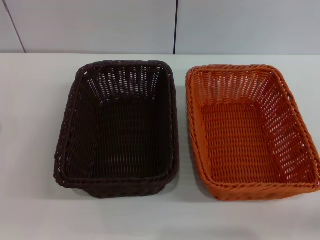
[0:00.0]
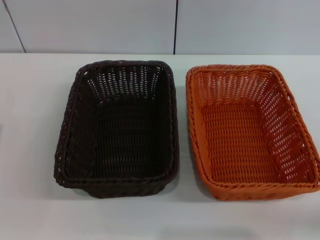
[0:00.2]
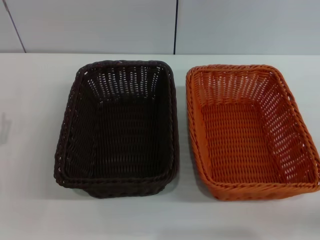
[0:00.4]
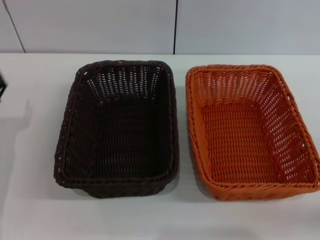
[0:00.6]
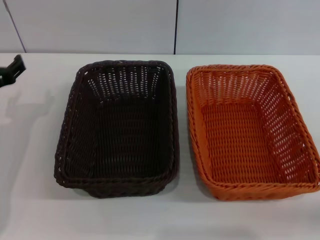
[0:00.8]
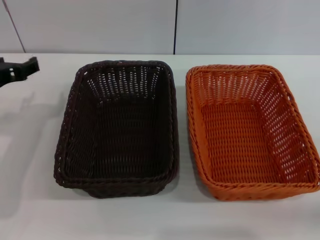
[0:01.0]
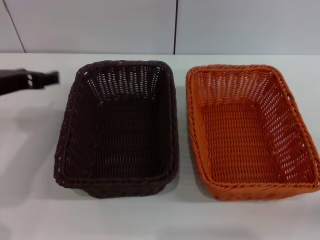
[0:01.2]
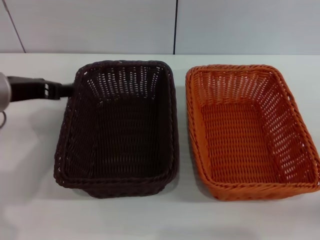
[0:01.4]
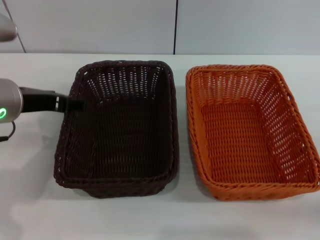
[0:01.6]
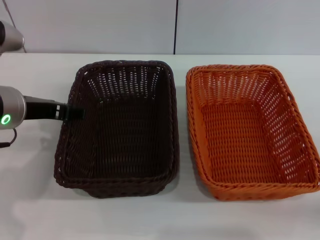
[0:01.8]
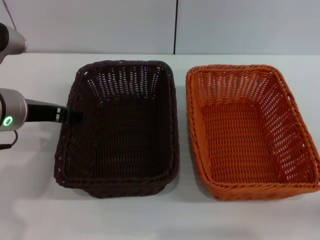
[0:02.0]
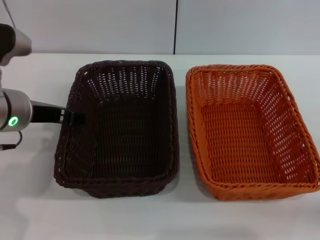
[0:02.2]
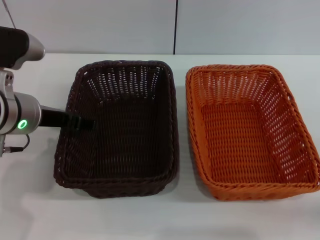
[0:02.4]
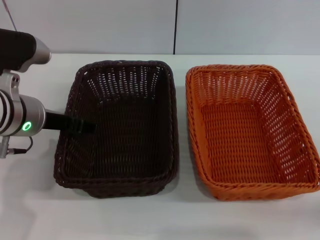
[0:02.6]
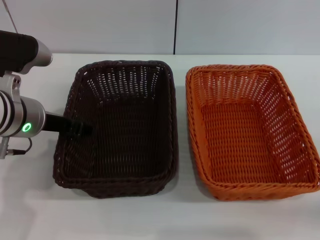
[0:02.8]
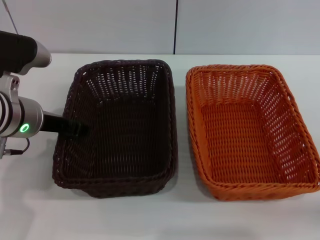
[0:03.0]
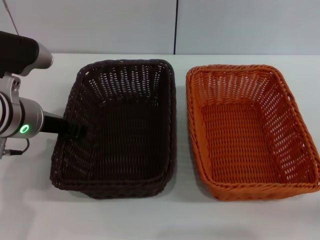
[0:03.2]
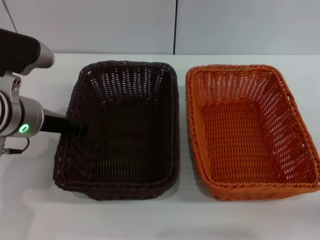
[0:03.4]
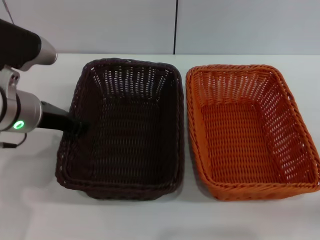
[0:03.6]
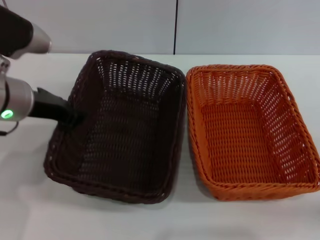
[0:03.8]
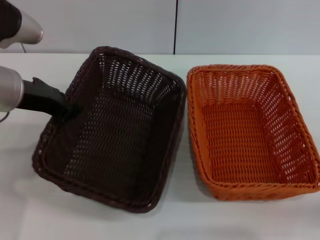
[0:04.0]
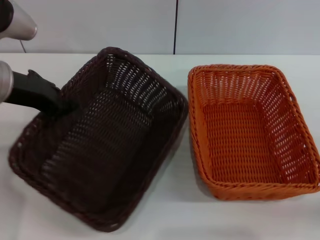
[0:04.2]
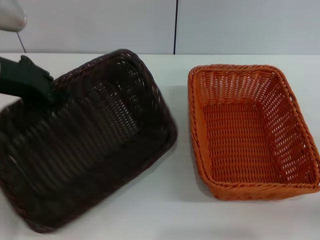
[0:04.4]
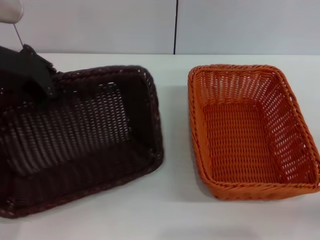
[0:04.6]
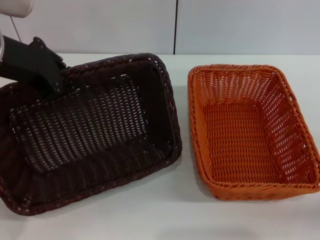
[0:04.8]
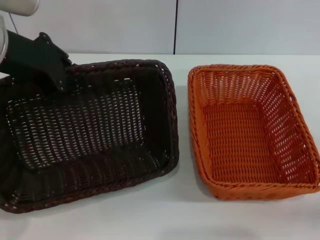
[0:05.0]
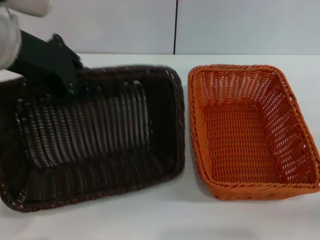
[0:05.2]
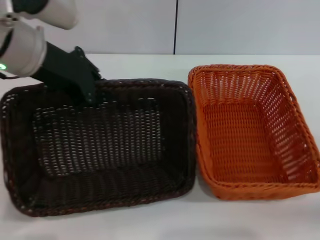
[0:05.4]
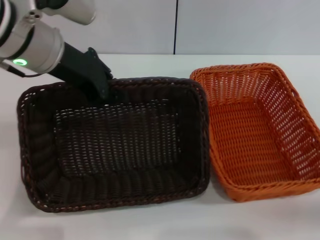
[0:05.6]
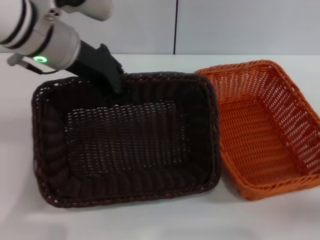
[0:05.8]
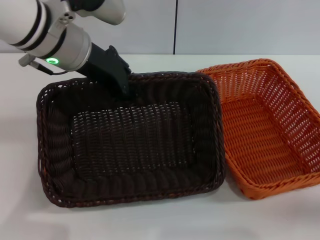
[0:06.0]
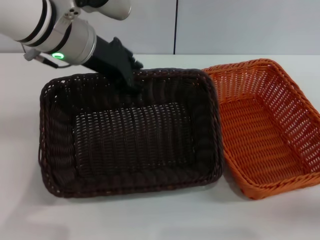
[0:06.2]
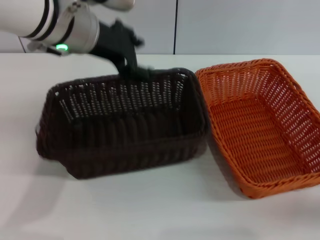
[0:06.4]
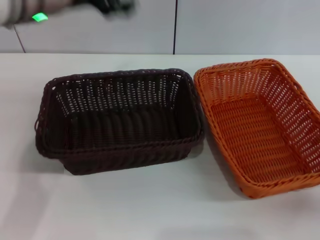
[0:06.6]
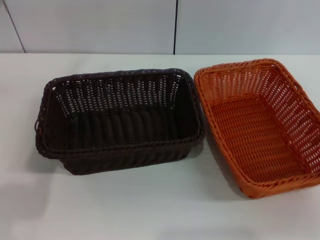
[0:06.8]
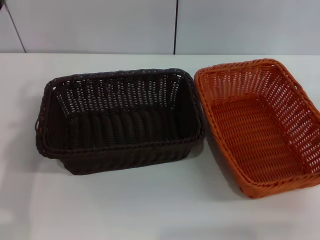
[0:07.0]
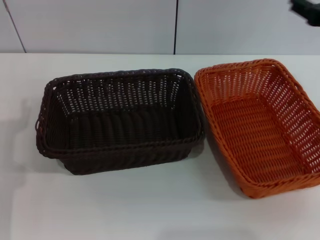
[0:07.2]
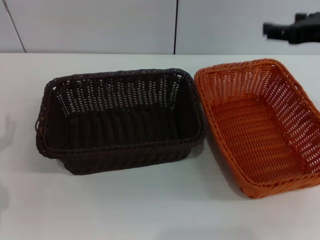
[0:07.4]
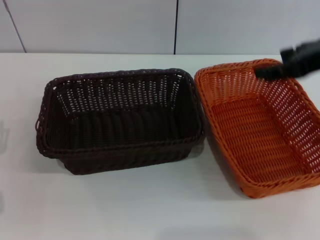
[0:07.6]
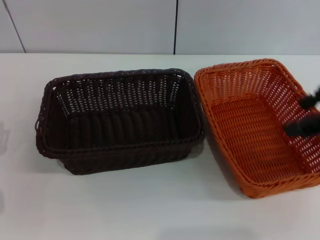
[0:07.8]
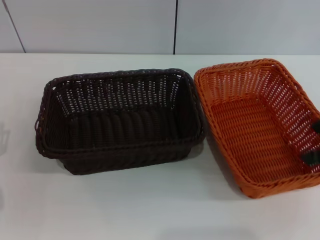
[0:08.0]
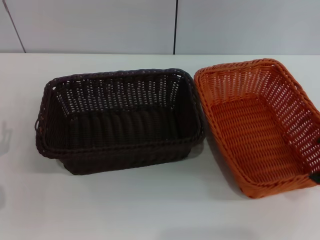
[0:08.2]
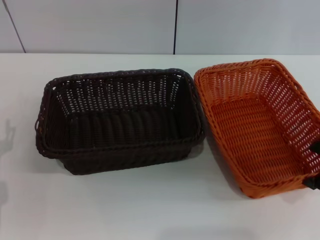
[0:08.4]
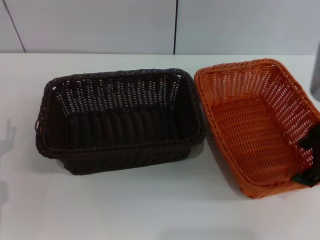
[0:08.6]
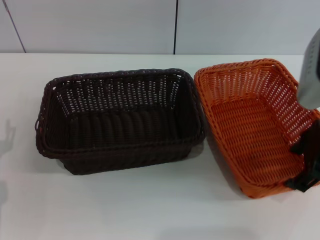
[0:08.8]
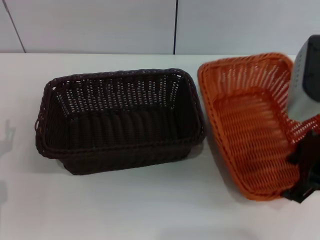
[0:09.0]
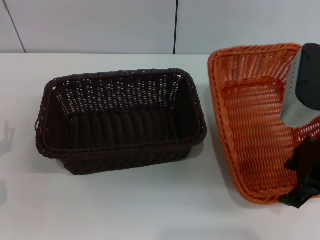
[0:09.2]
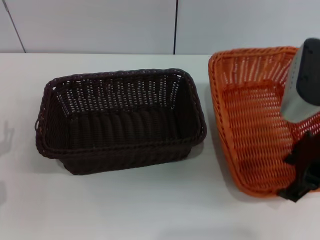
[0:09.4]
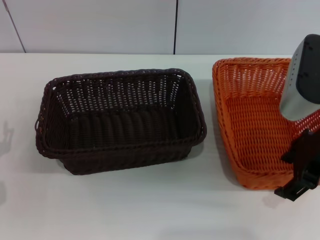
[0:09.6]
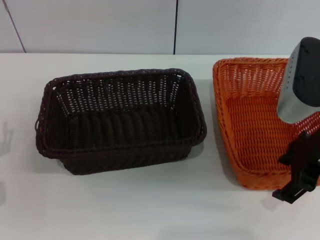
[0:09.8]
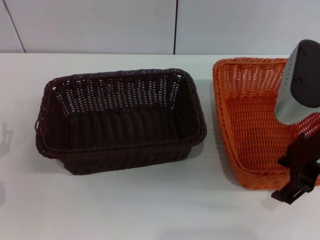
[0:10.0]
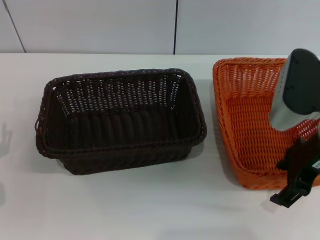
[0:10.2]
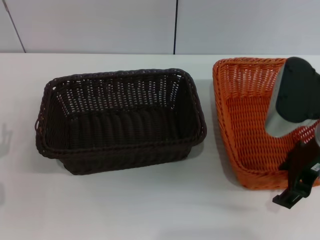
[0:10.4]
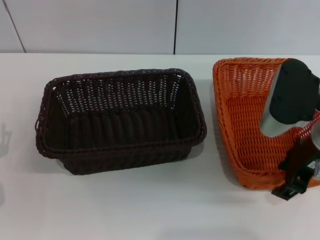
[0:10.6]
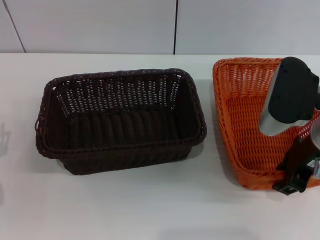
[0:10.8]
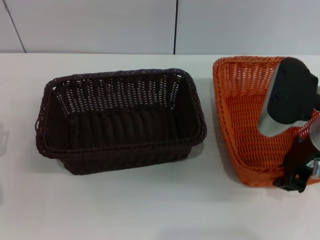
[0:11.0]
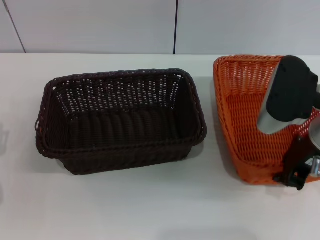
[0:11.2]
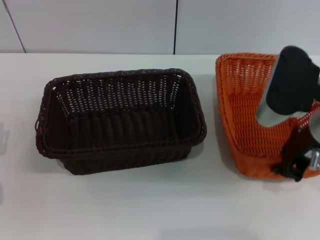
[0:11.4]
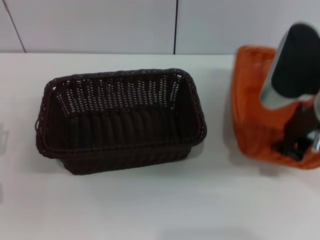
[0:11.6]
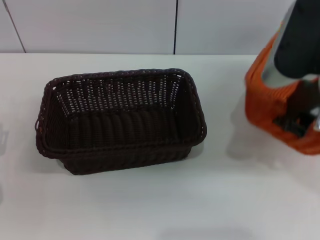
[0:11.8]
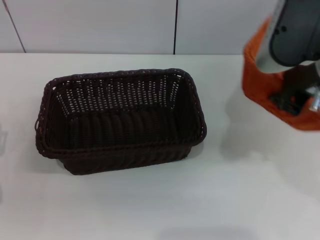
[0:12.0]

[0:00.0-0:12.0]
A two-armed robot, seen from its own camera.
Step, 0:00.0 to 0:03.6: Pick up the dark basket with the left gripper.
Step, 0:03.8 to 0:06.4: Place the dark basket in the center of view with the left gripper.
Step, 0:06.6 to 0:11.4: Pick up the light basket with the right gripper.
0:00.0 to 0:01.6: The left gripper heads upward, to the right and forward, covering some 20 cm.
0:01.6 to 0:03.0: The grippers make only small movements.
0:03.0 to 0:04.4: The left gripper shifts about 10 cm upward, and closes its fingers.
0:04.4 to 0:06.0: The left gripper heads to the right and forward, covering approximately 10 cm.
0:06.0 to 0:07.6: The left gripper travels downward, backward and to the left by approximately 30 cm, and opens up, while the right gripper goes some 25 cm upward.
0:07.6 to 0:09.0: The right gripper travels downward by some 5 cm.
0:09.0 to 0:10.4: The grippers make only small movements.
0:10.4 to 0:12.0: The right gripper shifts some 10 cm upward, and closes up.

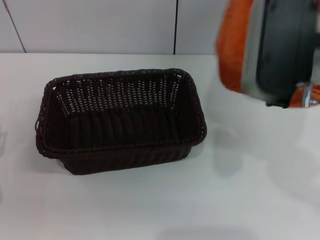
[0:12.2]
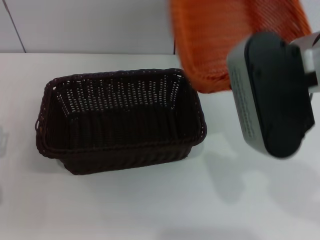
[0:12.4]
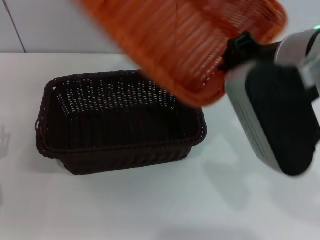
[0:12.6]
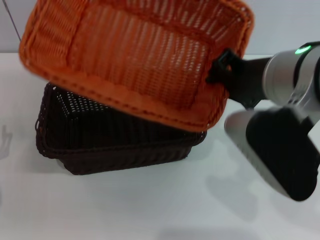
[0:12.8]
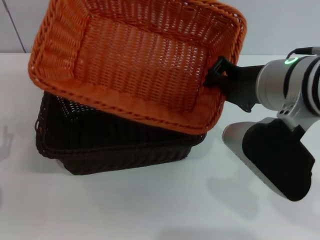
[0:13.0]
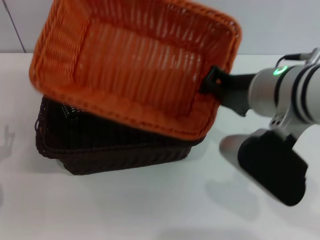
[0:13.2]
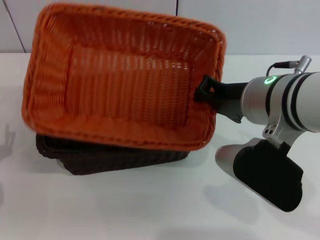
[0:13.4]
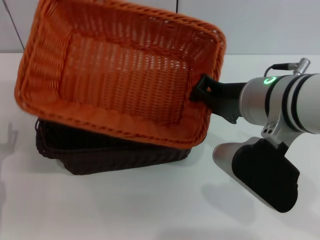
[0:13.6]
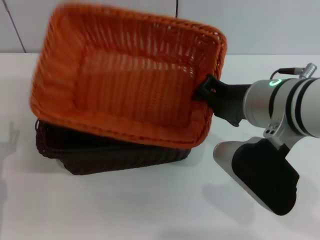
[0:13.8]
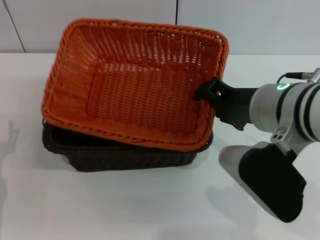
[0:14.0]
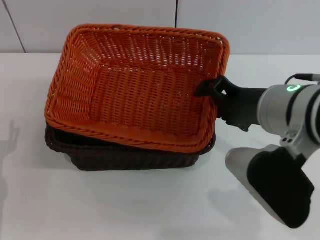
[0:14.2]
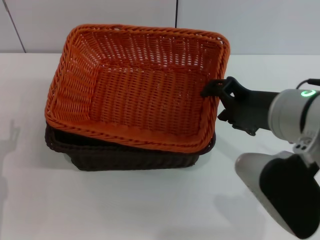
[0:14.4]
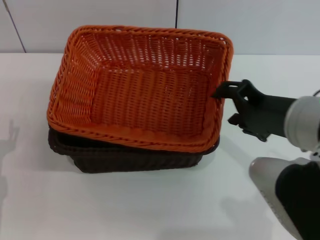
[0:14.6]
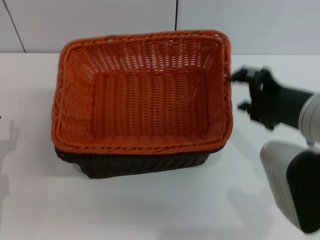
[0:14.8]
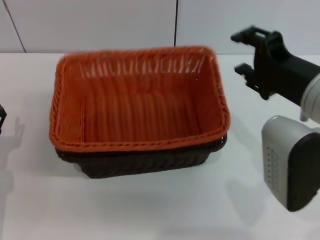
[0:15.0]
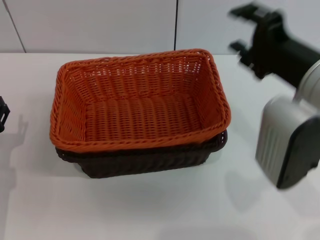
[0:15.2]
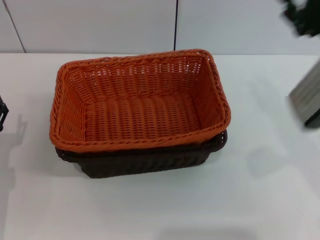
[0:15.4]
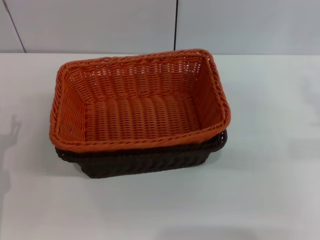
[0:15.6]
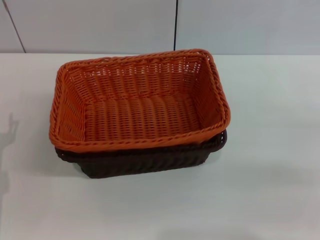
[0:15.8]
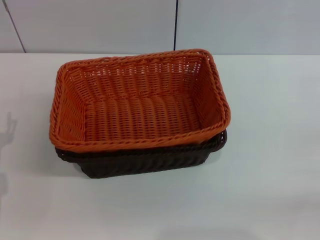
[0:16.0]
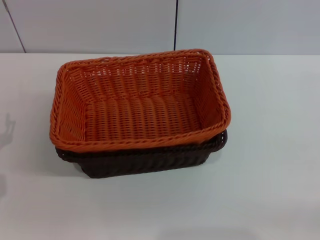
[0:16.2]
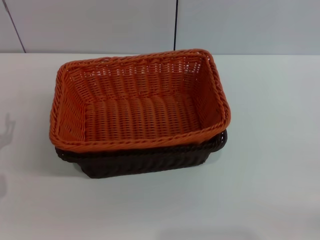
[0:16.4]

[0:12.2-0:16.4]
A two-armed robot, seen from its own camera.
Step, 0:12.2 to 0:15.0: Place the light basket on the dark basket with the right gripper.
0:12.2 to 0:13.6: The right gripper heads downward, covering some 5 cm.
0:13.6 to 0:15.0: The right gripper heads to the right, covering about 5 cm, and opens its fingers.
0:15.0 to 0:16.4: The right gripper travels to the right and downward by roughly 30 cm.
